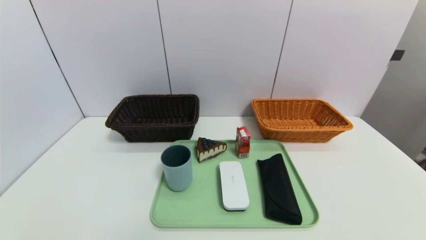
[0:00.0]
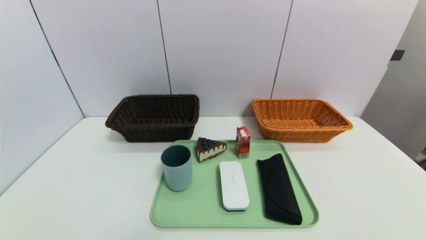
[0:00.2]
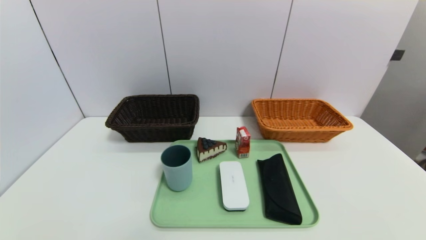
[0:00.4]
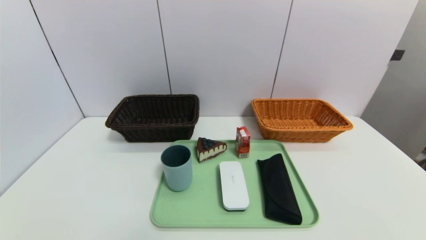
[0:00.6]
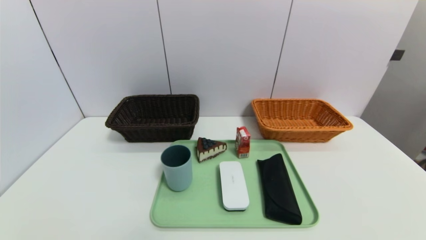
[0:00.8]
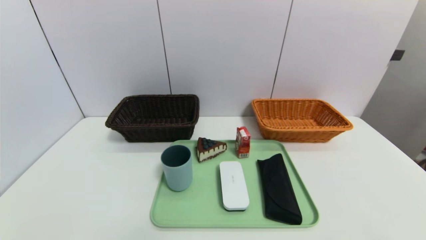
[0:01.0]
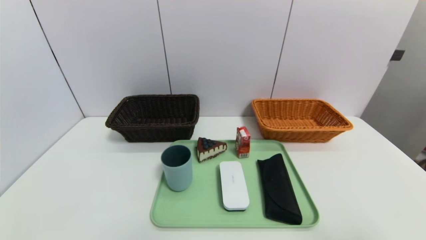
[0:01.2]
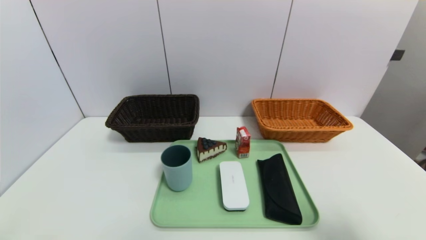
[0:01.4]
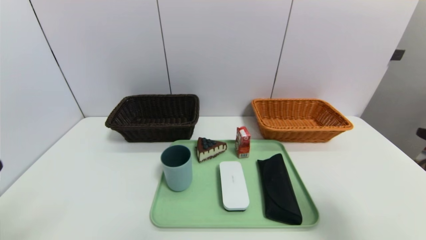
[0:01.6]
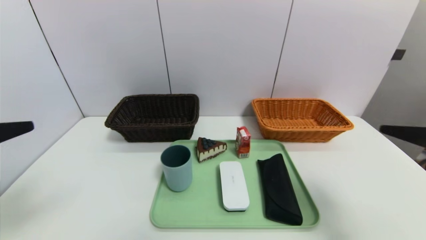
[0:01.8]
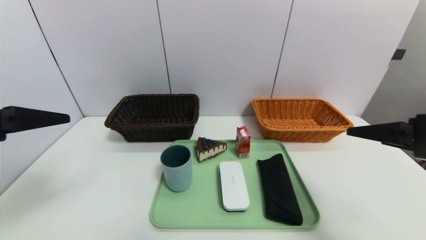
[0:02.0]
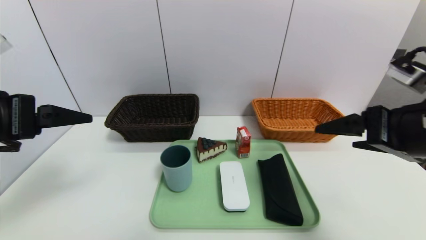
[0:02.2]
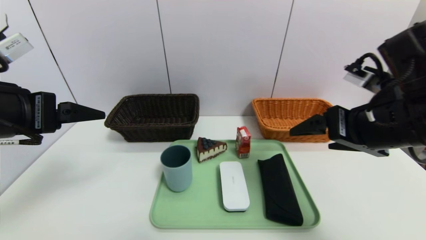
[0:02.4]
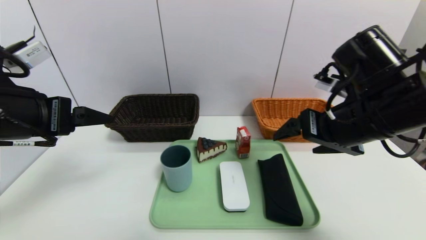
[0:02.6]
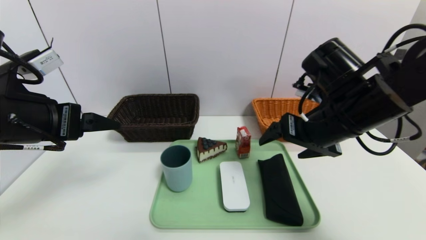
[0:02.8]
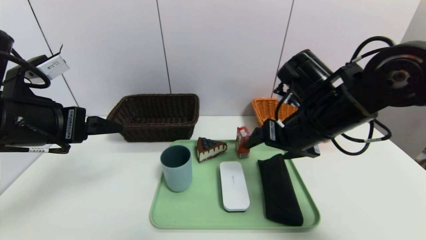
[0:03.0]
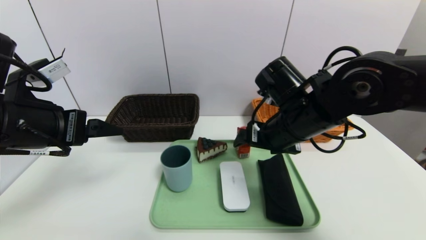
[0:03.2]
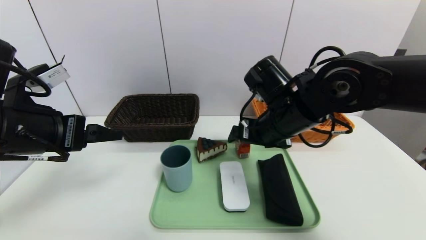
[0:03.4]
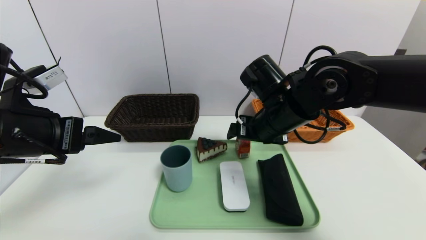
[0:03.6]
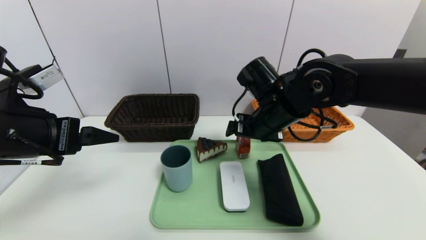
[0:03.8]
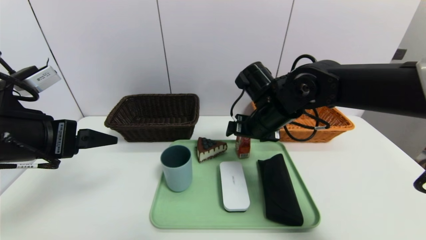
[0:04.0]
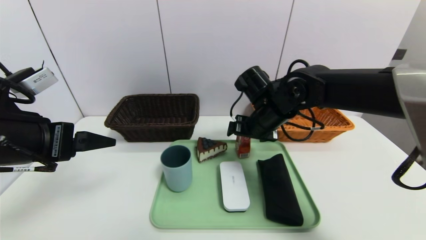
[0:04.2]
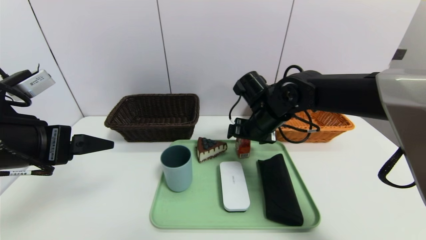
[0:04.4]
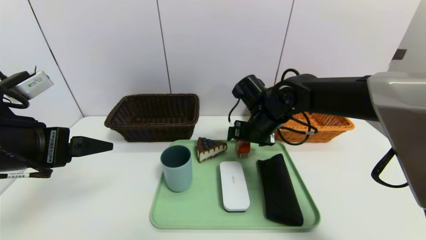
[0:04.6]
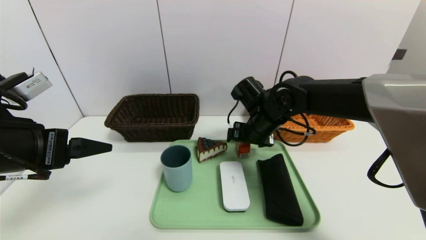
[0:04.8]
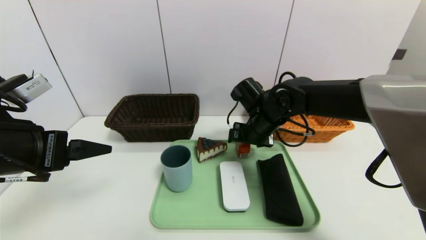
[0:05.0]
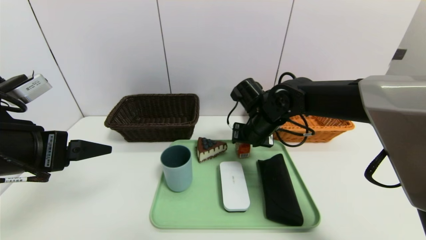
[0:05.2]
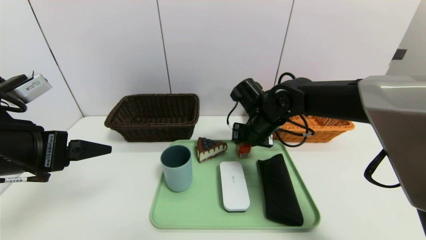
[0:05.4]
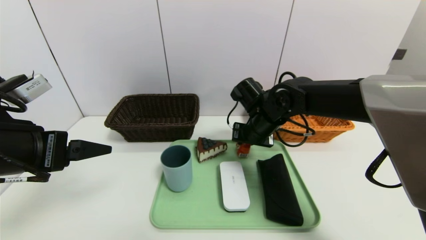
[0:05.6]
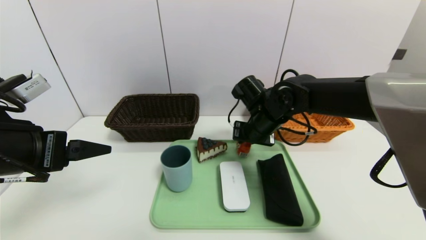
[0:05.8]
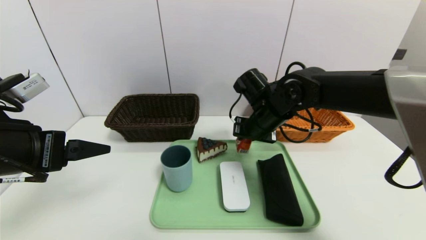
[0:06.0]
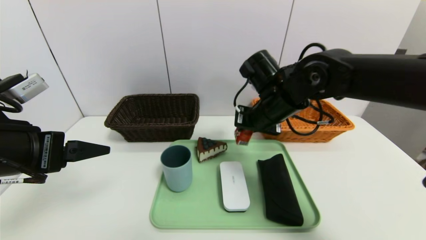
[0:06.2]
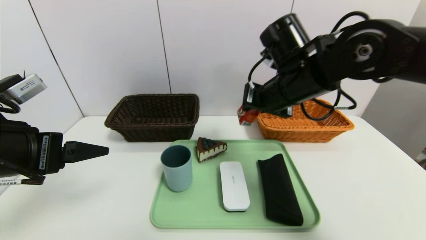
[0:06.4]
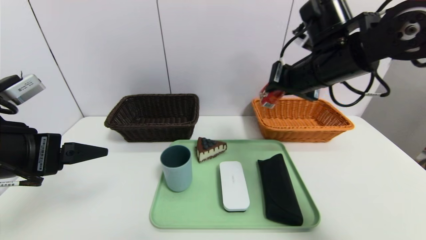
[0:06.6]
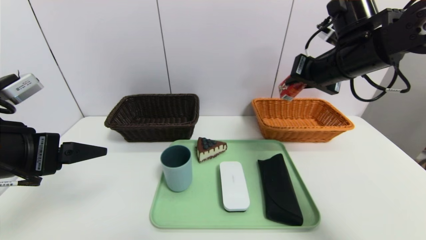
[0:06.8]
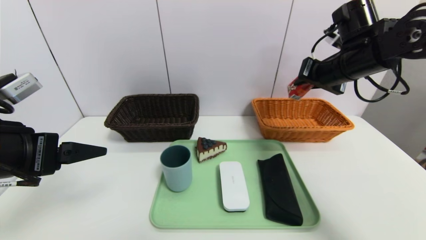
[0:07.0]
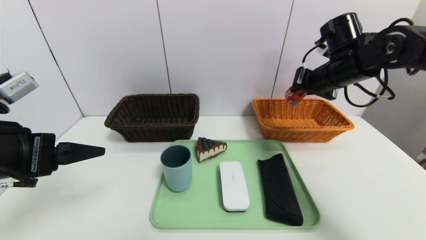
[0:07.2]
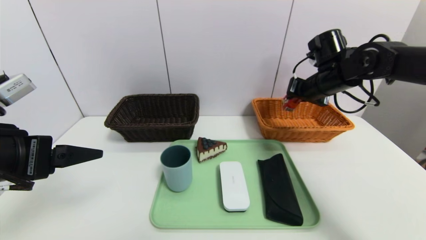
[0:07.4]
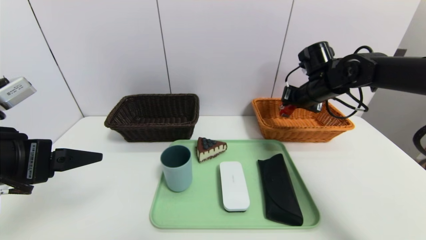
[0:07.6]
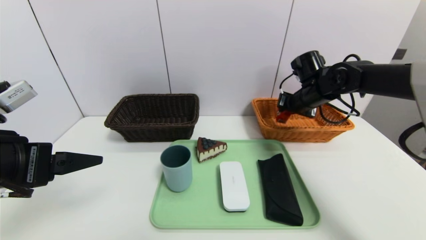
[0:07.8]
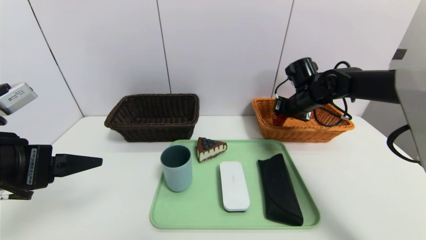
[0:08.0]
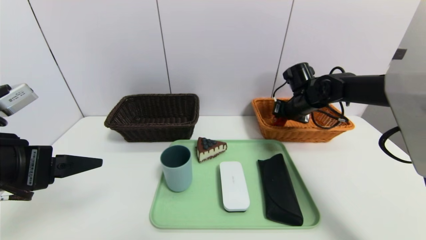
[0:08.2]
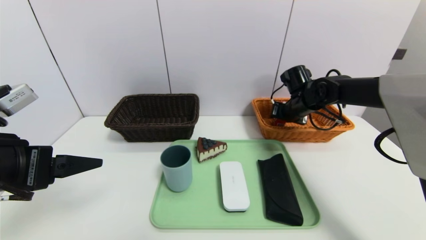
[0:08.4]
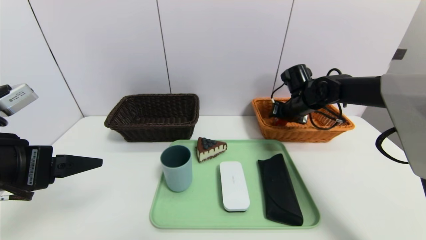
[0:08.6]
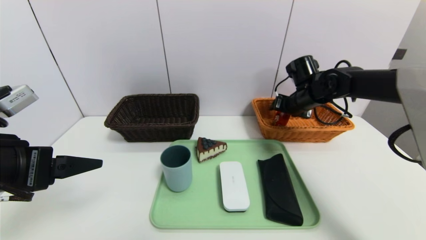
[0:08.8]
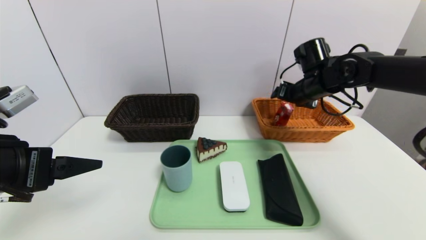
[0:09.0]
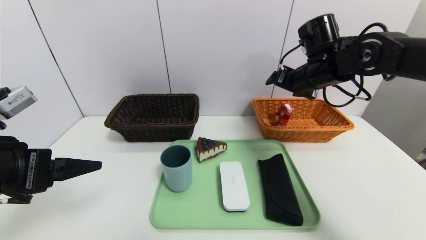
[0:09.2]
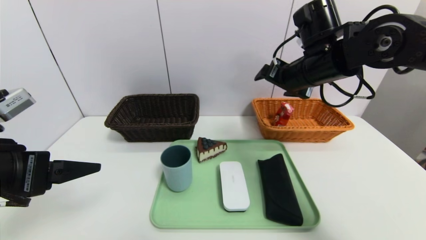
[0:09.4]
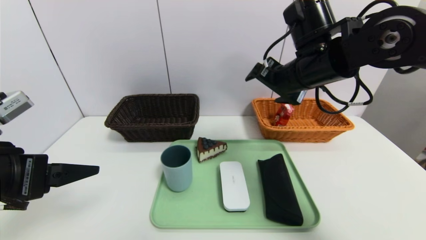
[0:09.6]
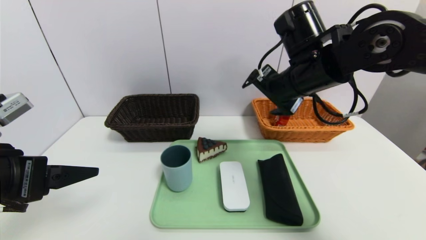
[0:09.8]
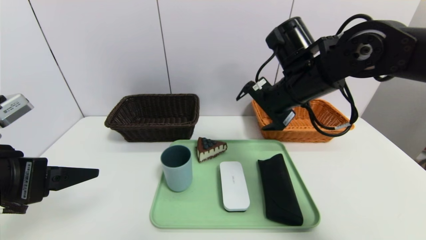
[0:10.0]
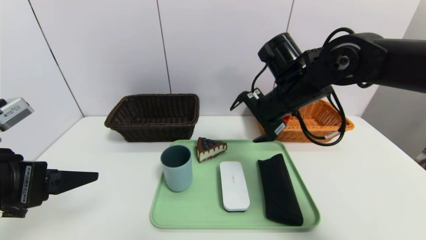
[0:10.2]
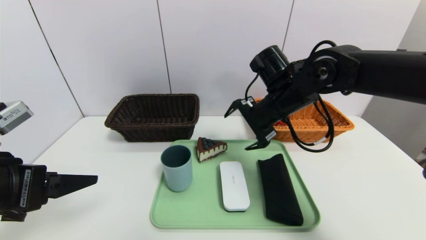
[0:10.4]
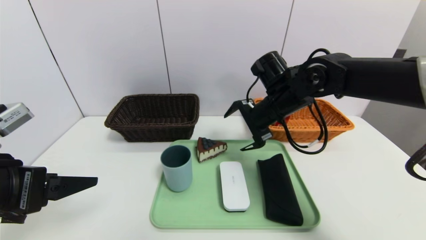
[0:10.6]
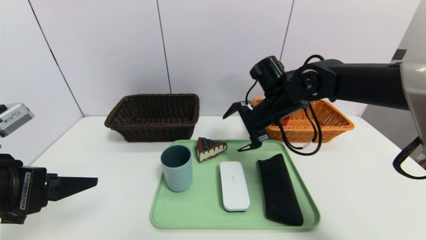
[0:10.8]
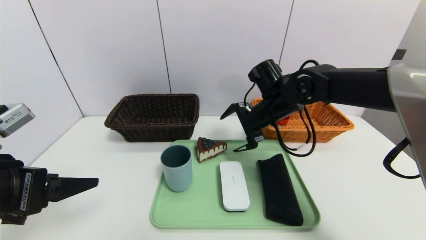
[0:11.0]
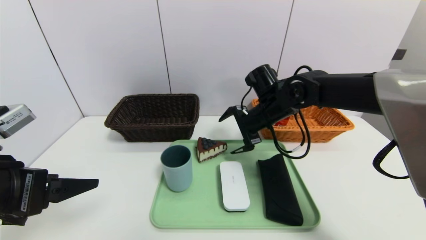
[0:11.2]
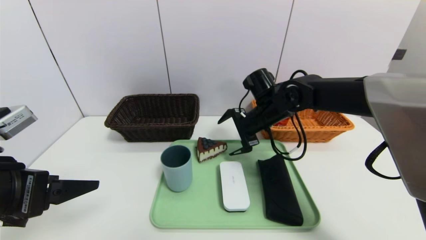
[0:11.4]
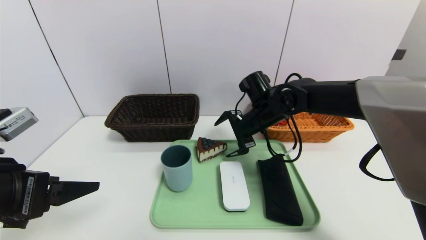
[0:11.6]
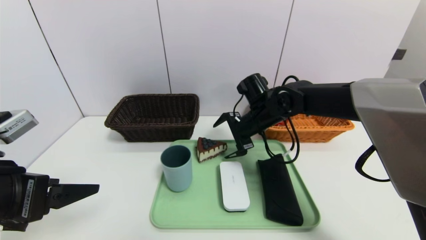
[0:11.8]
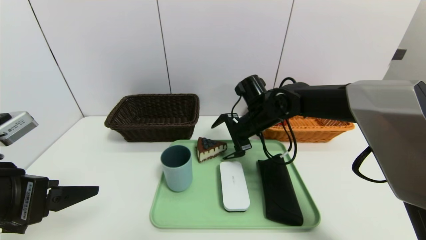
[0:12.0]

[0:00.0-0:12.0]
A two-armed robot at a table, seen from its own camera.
Task of the whole recording: place the food in the right basket with the right gripper, and place the non food items in the left basket with the left gripper.
Step, 0:00.0 to 0:09.0: Grasp the ad milk and put it in the right basket.
0:00.0 to 0:01.6: The right gripper heads upward and forward, covering about 25 cm.
0:01.6 to 0:03.0: The left gripper goes about 15 cm forward; the right gripper moves to the left and forward, some 25 cm.
0:03.0 to 0:04.4: The right gripper heads forward, downward and to the left, covering roughly 10 cm.
0:04.4 to 0:06.0: The right gripper closes its fingers.
0:06.0 to 0:07.6: The right gripper heads to the right and forward, covering approximately 15 cm.
0:07.6 to 0:09.0: The right gripper opens its fingers.
0:09.0 to 0:10.4: The right gripper moves to the left and backward, some 15 cm.
0:10.4 to 0:12.0: The right gripper goes about 10 cm downward and forward.

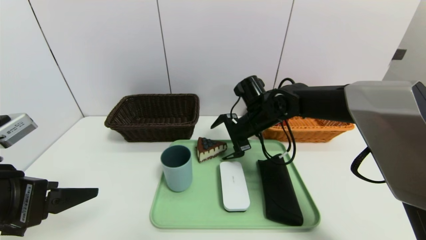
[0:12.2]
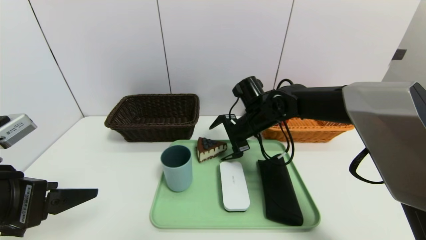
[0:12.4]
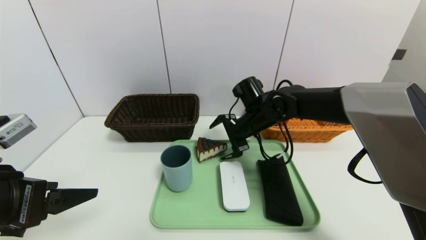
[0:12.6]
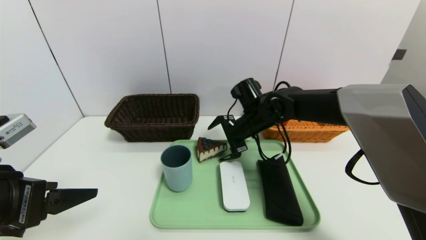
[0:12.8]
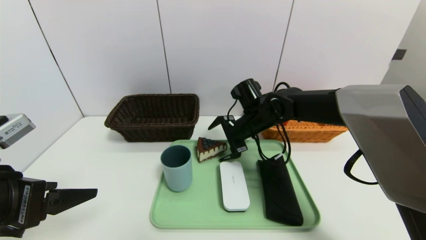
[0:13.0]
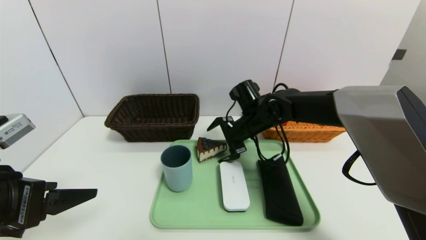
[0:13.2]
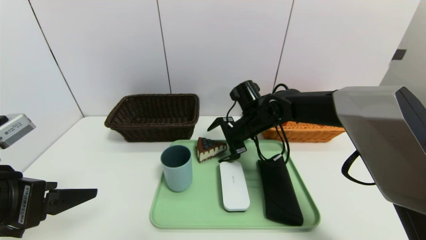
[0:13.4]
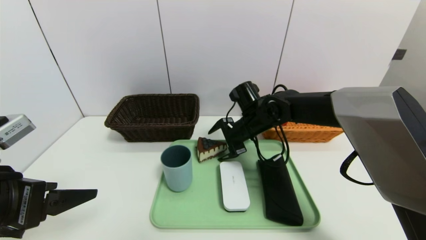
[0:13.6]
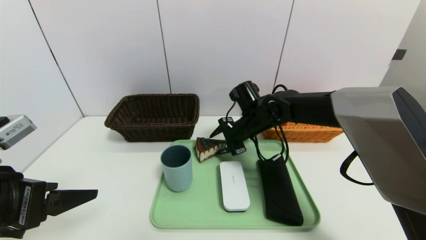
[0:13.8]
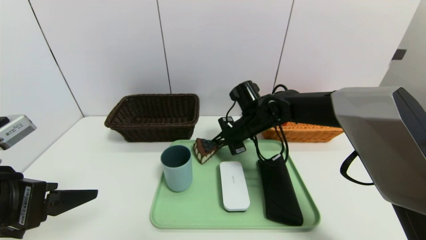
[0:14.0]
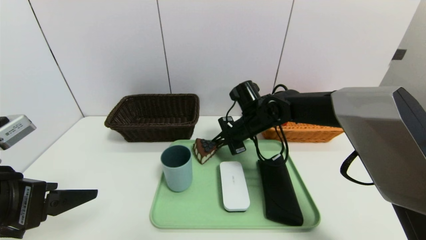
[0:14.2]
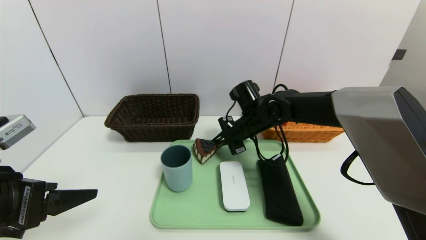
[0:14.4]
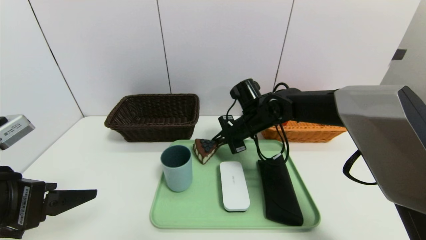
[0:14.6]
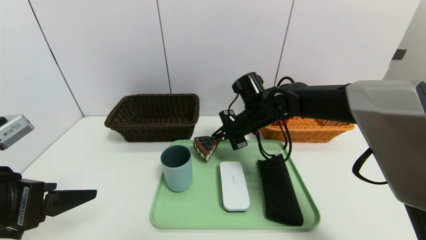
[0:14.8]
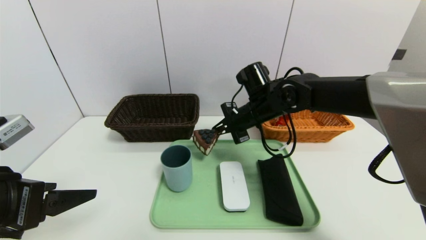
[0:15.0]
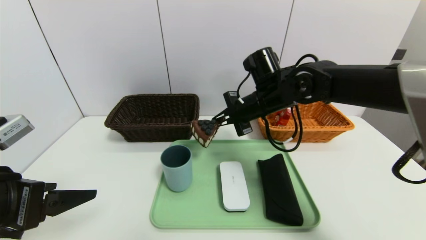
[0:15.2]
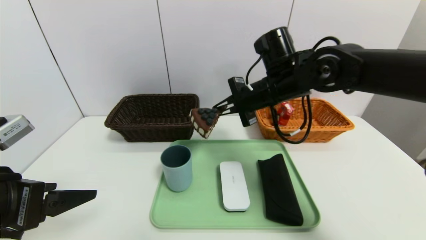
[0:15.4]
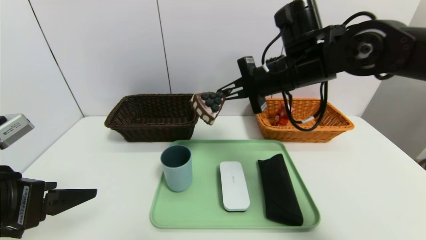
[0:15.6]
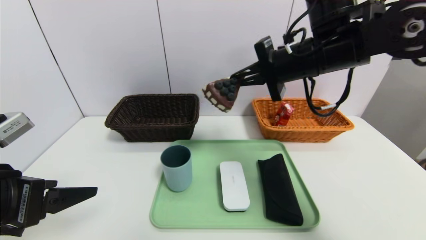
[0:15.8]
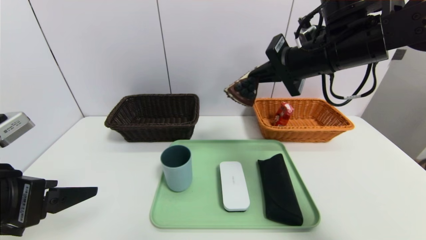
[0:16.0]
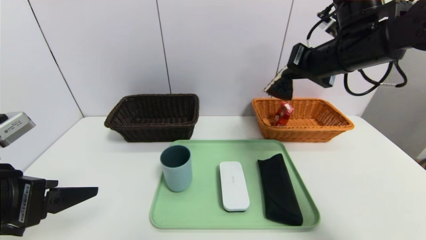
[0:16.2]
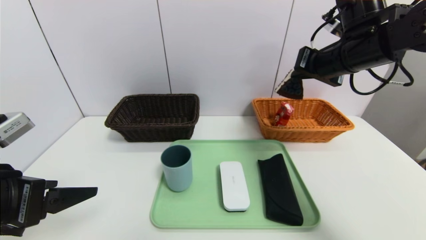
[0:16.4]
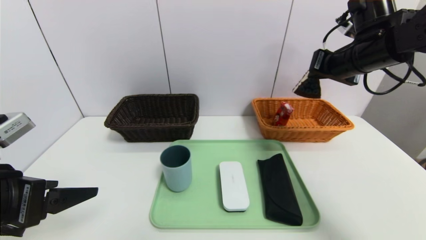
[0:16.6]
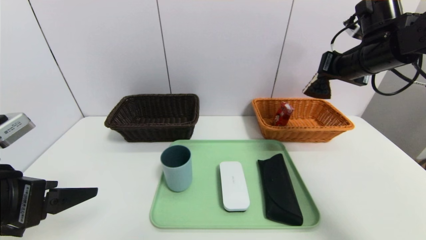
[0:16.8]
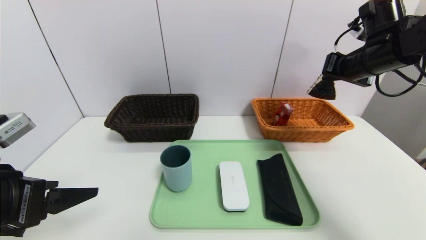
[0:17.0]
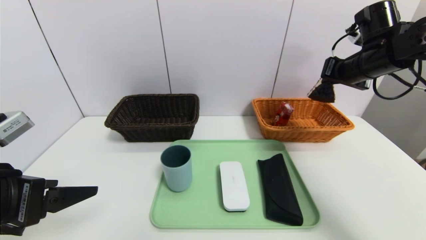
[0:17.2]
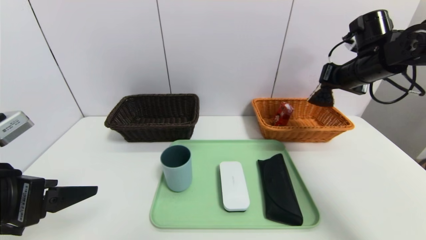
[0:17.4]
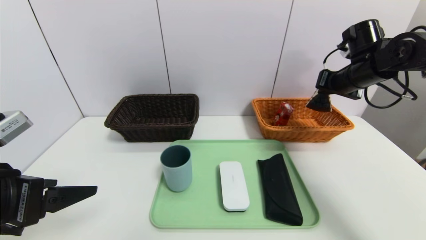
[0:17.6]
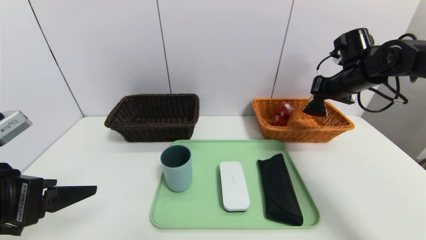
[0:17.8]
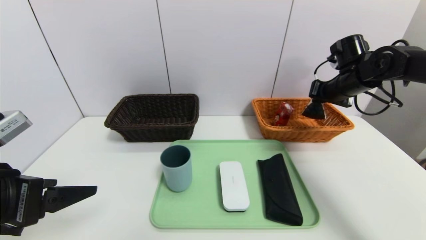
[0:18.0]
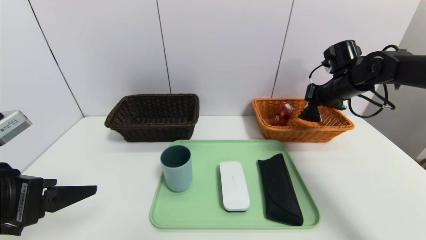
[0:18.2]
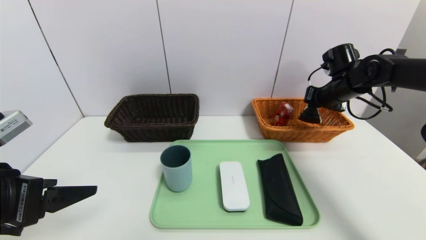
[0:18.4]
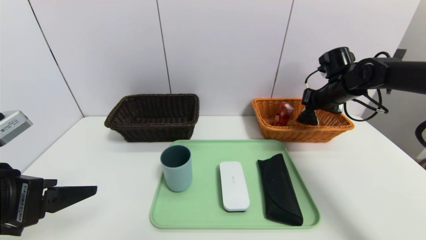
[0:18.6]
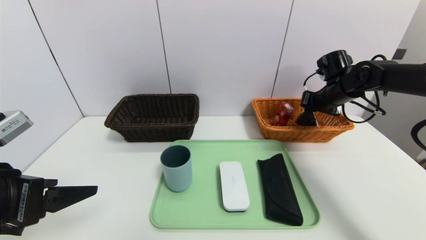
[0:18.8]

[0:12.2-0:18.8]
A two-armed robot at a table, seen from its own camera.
Task of the whole recording: place the food in the right basket with the right gripper, and place the non food items in the left basket with the left gripper.
0:12.2 to 0:13.8: The right gripper closes.
0:13.8 to 0:15.4: The right gripper shifts approximately 15 cm upward and backward, and closes up.
0:15.4 to 0:17.2: The right gripper is displaced to the right by some 20 cm.
0:17.2 to 0:18.8: The right gripper travels downward and forward by some 10 cm.
